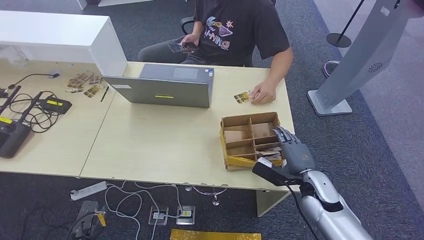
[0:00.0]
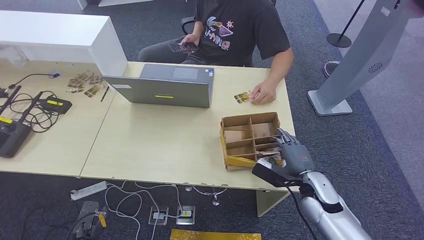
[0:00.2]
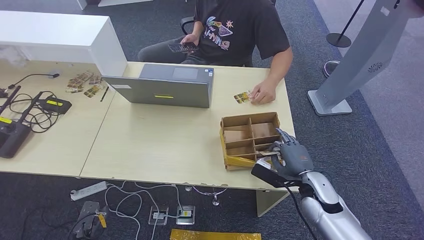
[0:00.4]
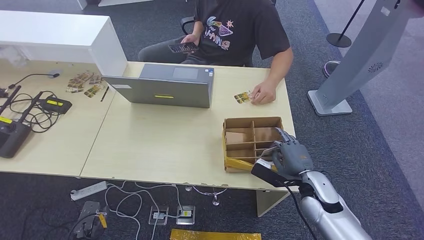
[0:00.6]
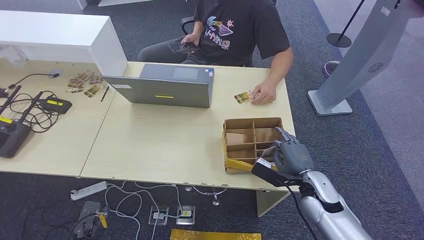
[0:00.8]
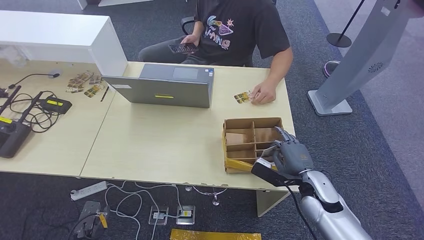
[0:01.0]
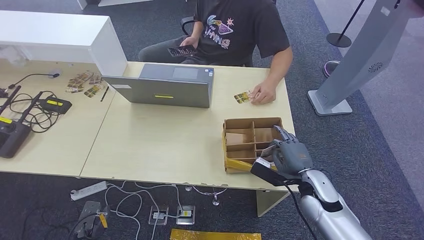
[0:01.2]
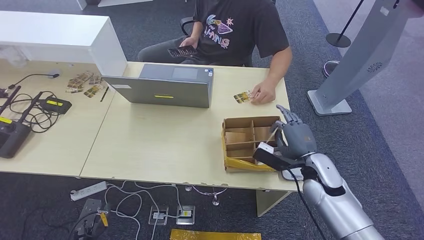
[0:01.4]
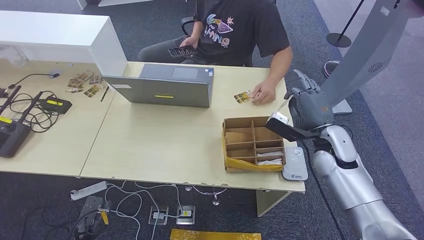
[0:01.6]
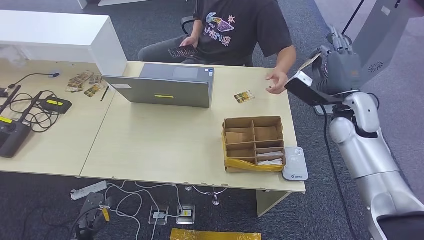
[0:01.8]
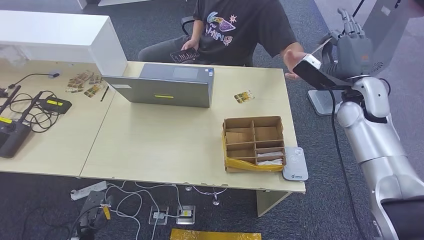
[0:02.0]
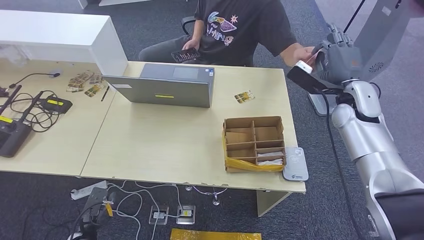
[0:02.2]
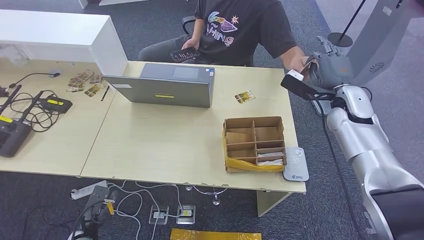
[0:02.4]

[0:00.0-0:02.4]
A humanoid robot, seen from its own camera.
Step, 0:01.4 to 0:02.4: Hand the room key to the person.
0:00.0 to 0:01.2: The two hands keep their place.
0:01.2 to 0:02.4: The right hand shifts about 20 cm upward and forward.
